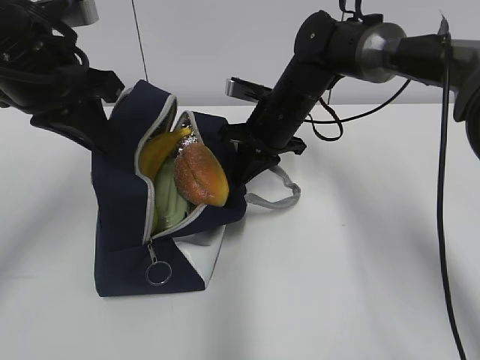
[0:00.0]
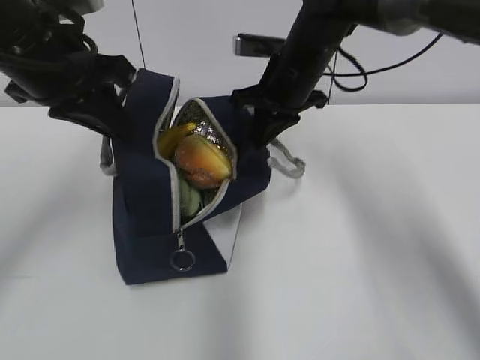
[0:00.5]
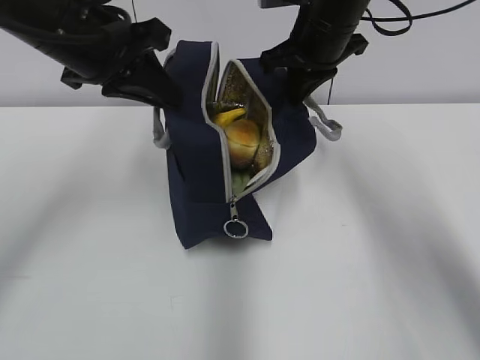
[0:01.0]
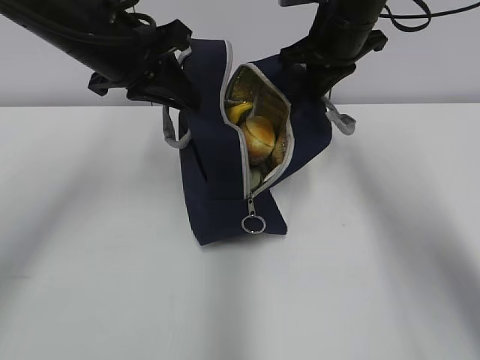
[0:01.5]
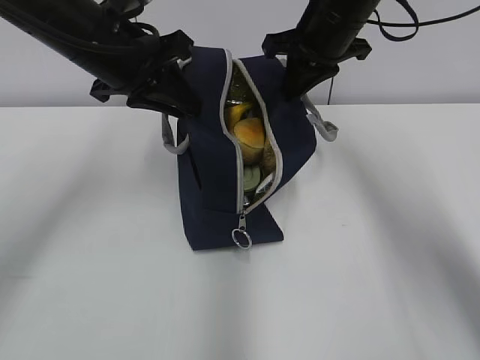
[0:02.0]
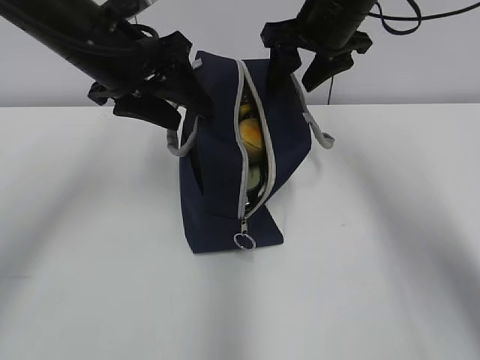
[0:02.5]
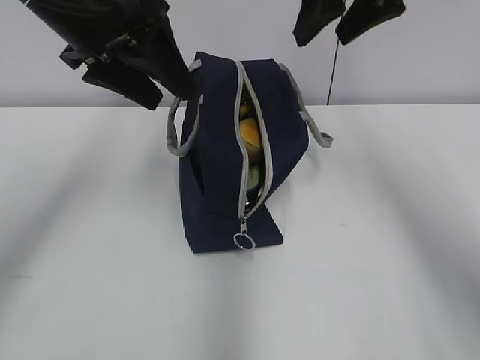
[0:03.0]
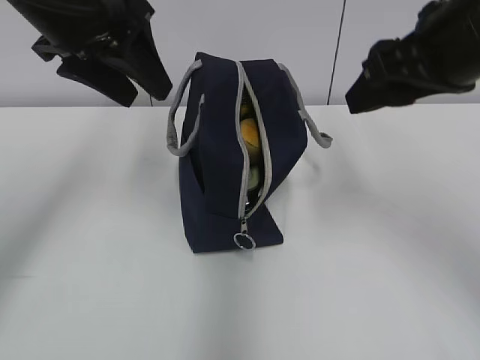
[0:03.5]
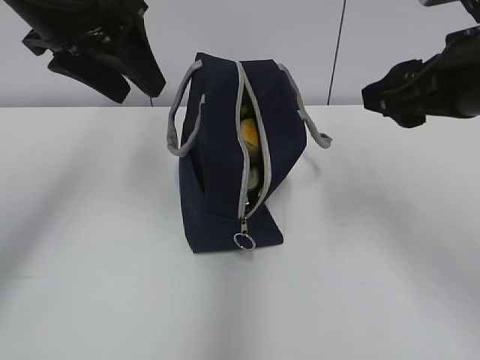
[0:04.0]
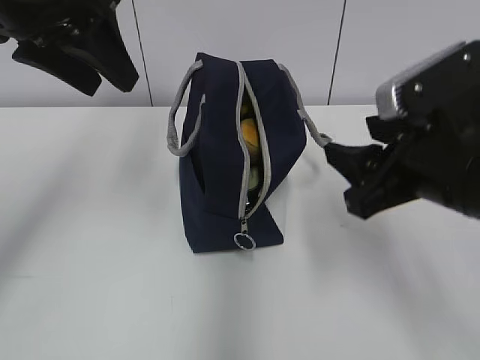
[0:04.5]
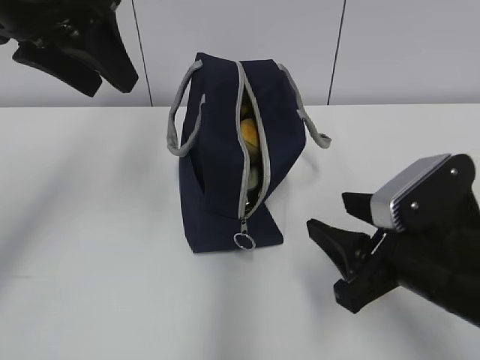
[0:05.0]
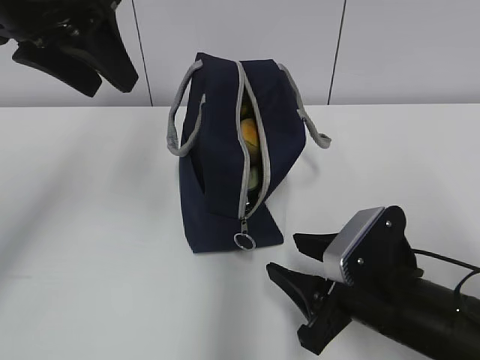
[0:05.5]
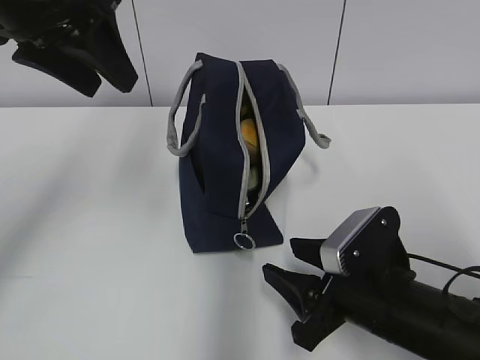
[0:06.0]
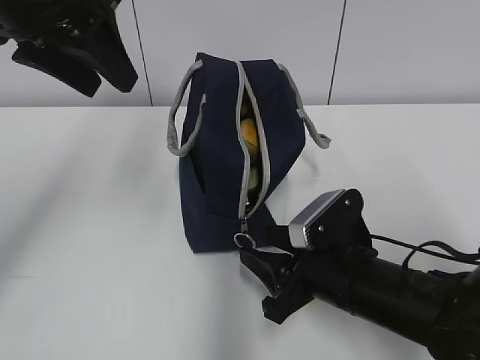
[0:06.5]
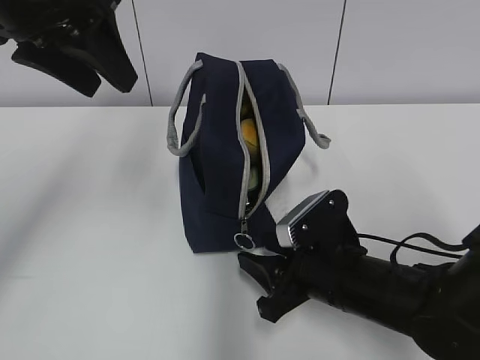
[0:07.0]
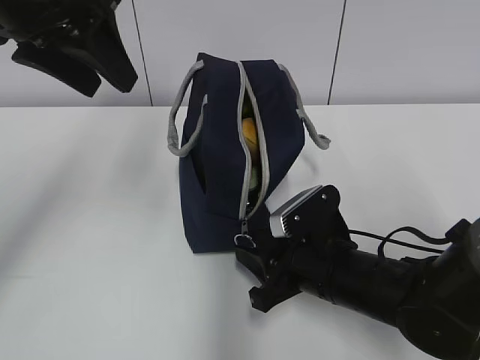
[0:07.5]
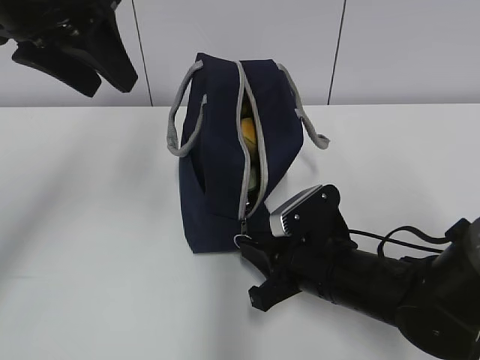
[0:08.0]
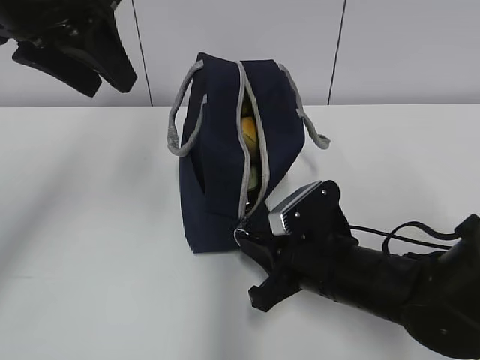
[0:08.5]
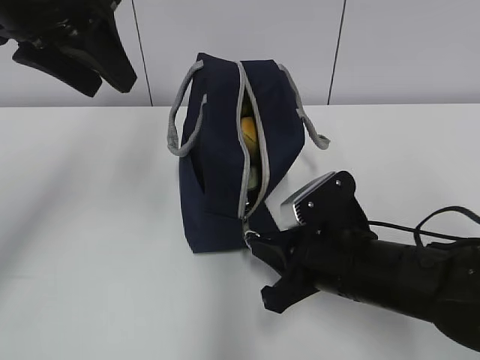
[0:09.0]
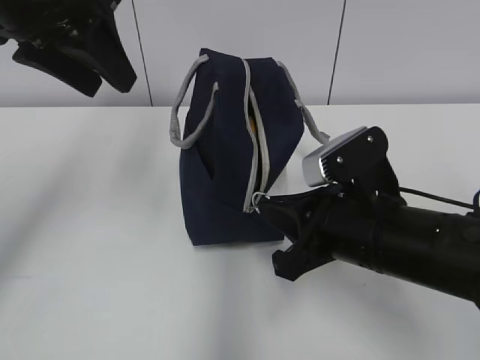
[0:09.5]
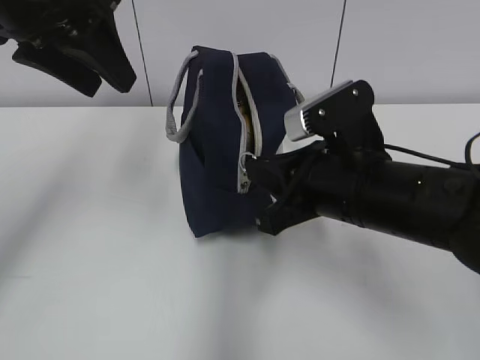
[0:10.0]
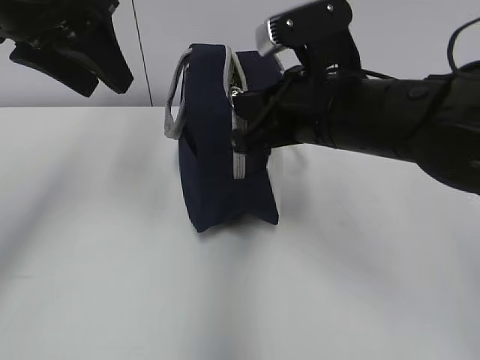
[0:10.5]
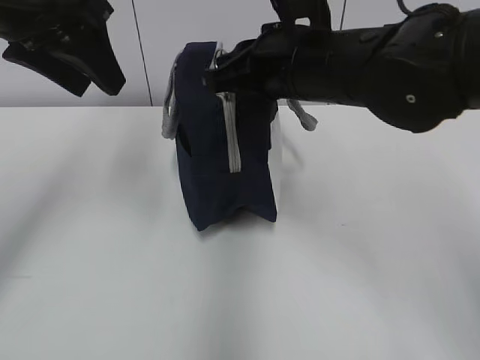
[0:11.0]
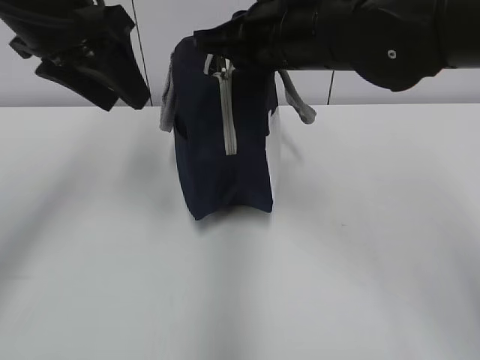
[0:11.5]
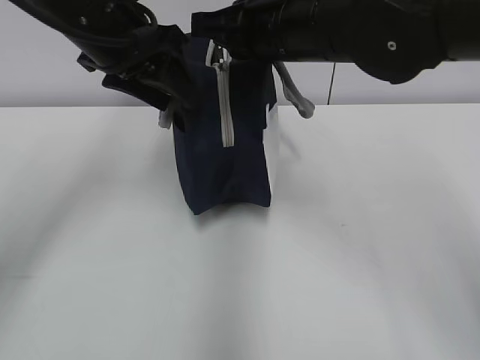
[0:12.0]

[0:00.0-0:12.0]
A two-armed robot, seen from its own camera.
0.0 to 2.0 s: The left gripper goes approximately 5 cm forward. Meanwhile the right gripper is displaced upward and to the right by approximately 15 cm.
2.0 to 4.0 s: The right gripper goes some 20 cm backward, and opens up; the left gripper heads upward, covering approximately 5 cm, and opens its fingers.
4.0 to 6.0 s: The right gripper travels downward by about 20 cm.
6.0 to 8.0 s: The right gripper heads forward, covering some 5 cm, and closes.
8.0 to 10.0 s: The right gripper moves upward, some 10 cm.
10.0 to 12.0 s: The right gripper heads upward and forward, covering some 15 cm. Meanwhile the left gripper changes place by about 5 cm.

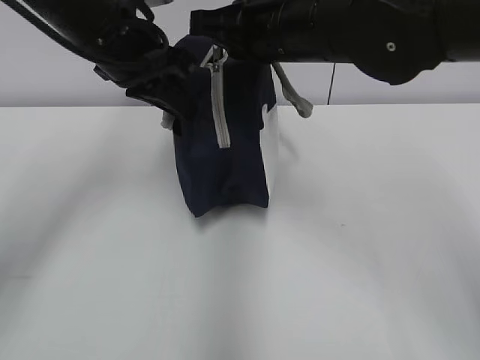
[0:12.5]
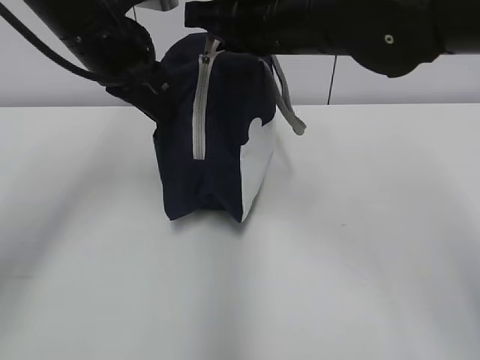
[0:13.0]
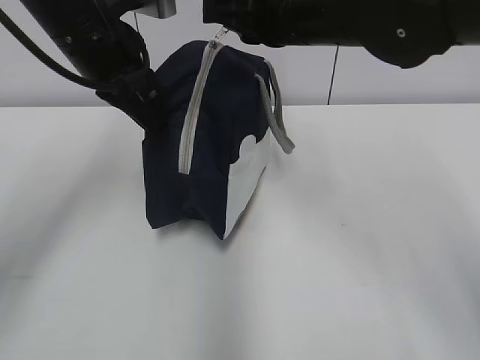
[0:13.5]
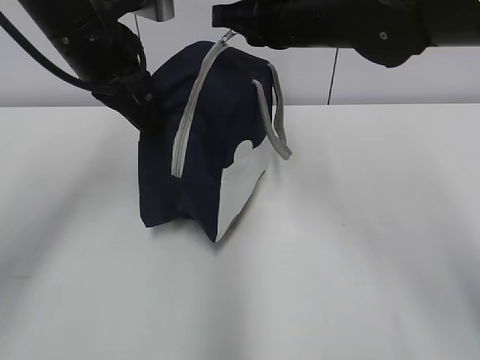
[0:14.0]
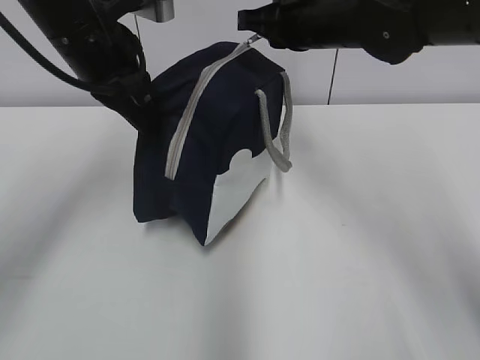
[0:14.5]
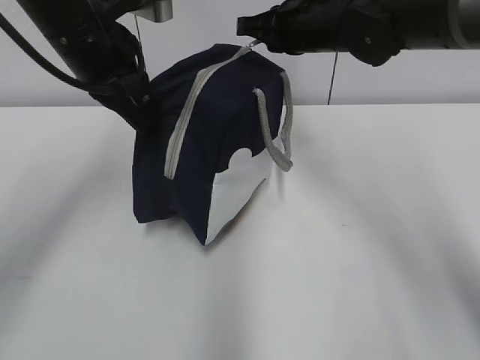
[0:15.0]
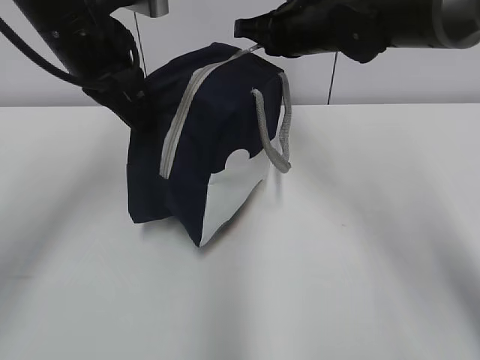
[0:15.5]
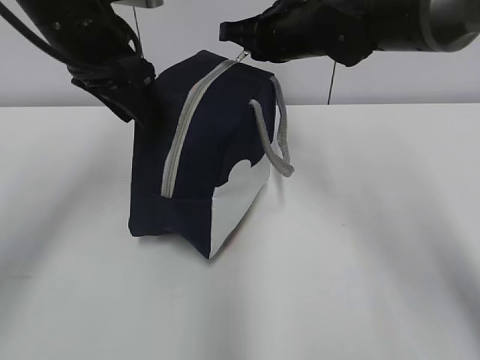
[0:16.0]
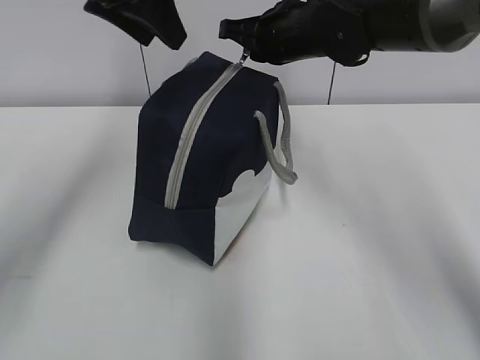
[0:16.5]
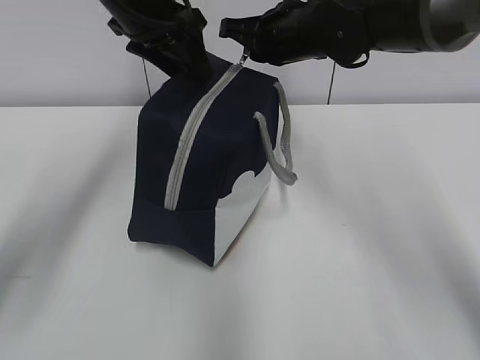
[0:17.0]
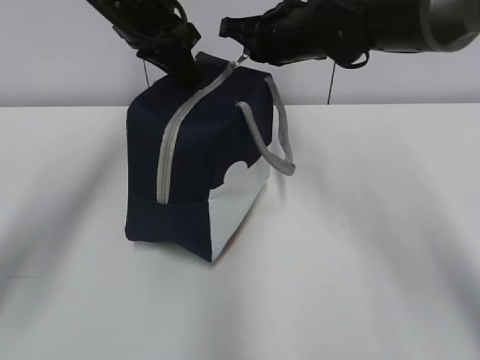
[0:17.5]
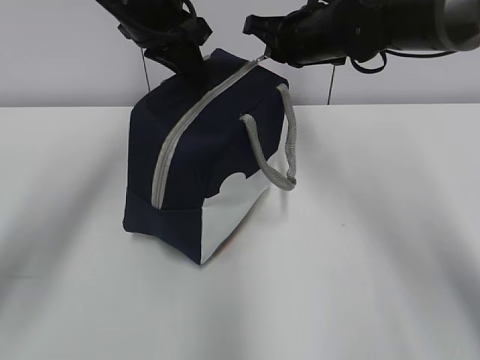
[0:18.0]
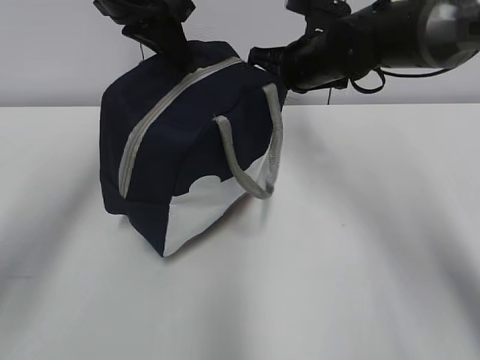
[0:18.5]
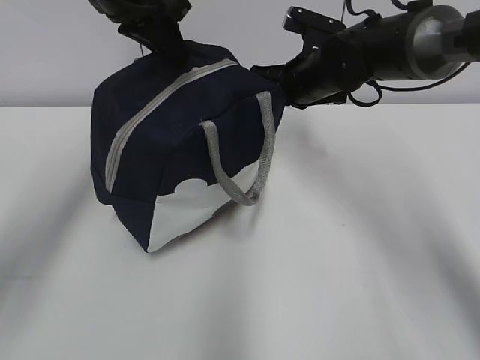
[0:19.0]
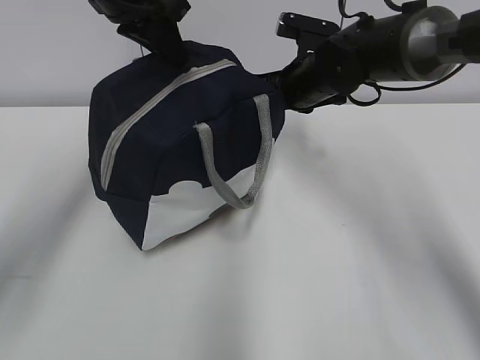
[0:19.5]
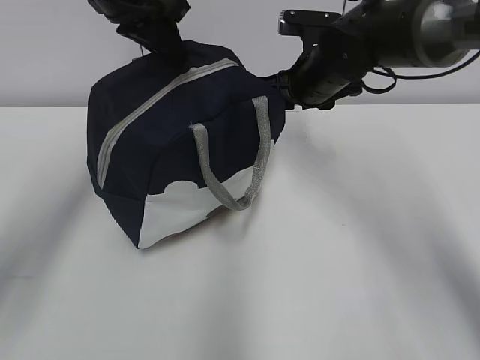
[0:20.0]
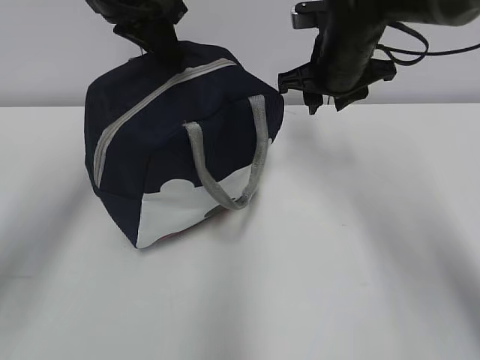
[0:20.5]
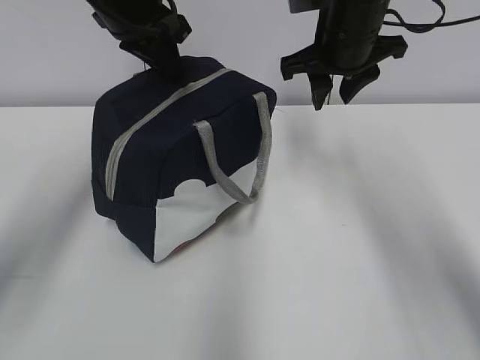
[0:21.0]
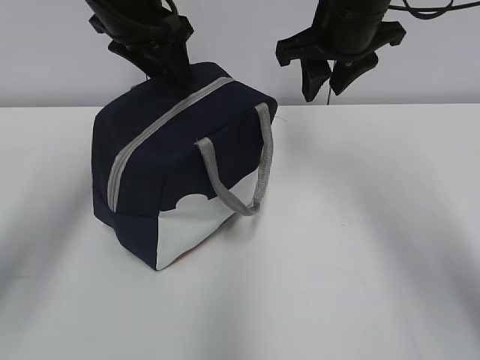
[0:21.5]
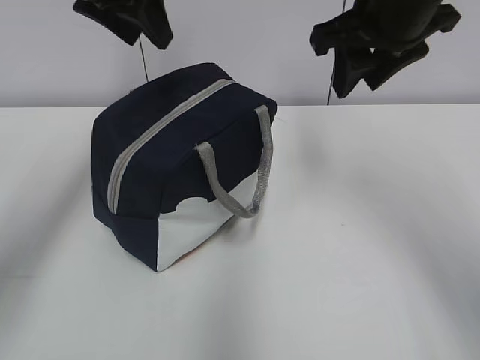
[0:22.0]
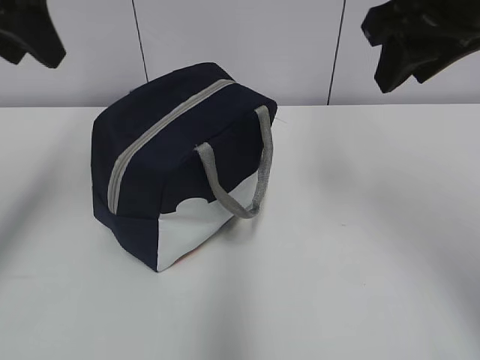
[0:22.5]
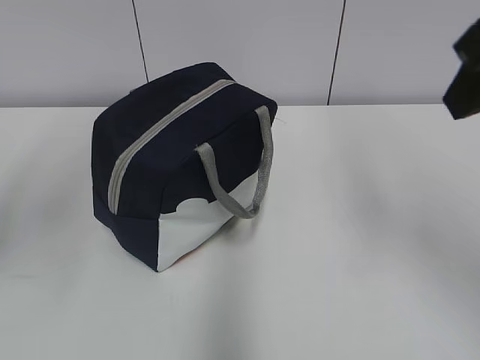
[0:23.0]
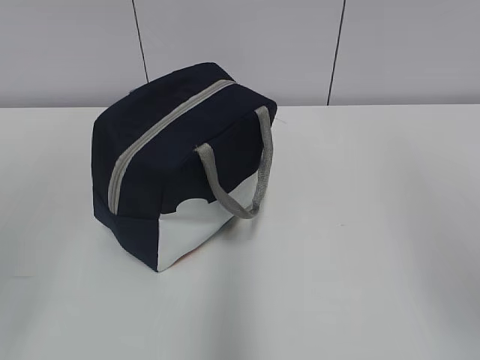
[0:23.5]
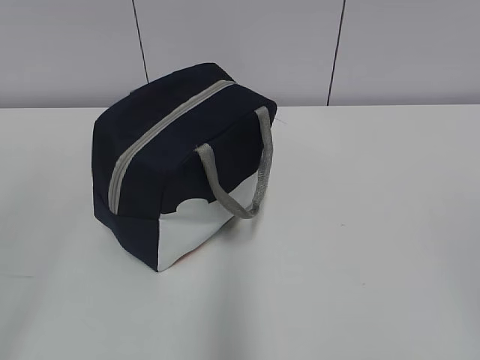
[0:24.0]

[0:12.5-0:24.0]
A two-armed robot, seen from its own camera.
12.5 to 14.5 s: The right gripper heads forward, covering approximately 5 cm.
14.5 to 16.5 s: The left gripper goes approximately 10 cm upward, and opens its fingers.
16.5 to 18.5 s: The right gripper changes place by approximately 5 cm, while the left gripper closes.
18.5 to 20.0 s: The right gripper opens.
20.0 to 22.0 s: The left gripper opens up. The right gripper moves upward and backward, roughly 15 cm.
22.0 to 24.0 s: The left gripper heads backward and to the left, covering about 40 cm; the right gripper heads backward, covering approximately 40 cm.

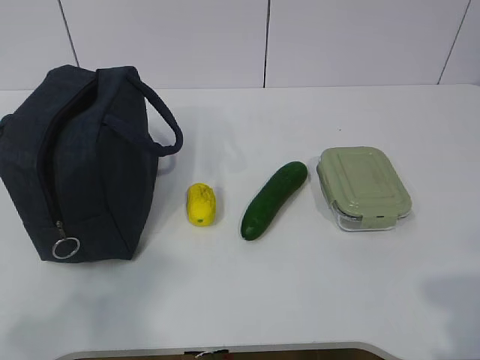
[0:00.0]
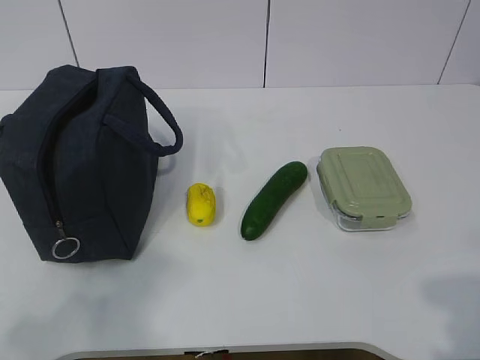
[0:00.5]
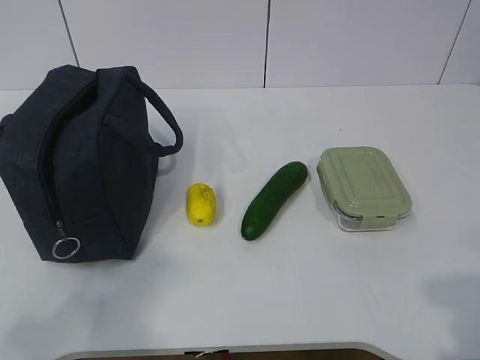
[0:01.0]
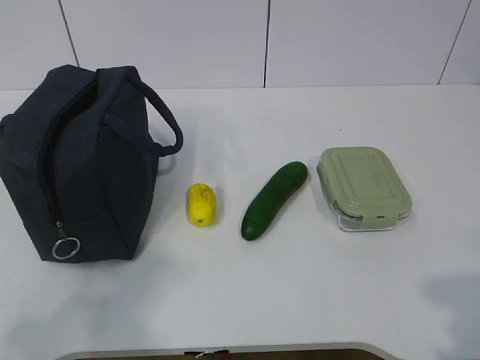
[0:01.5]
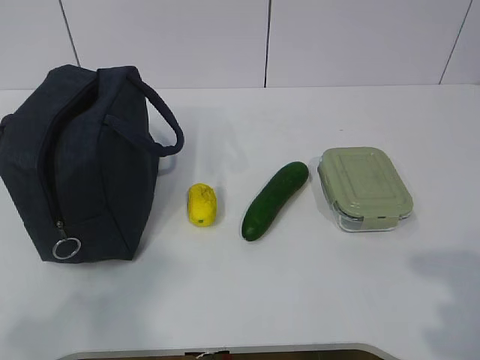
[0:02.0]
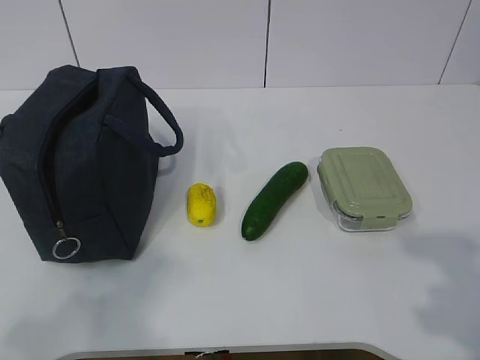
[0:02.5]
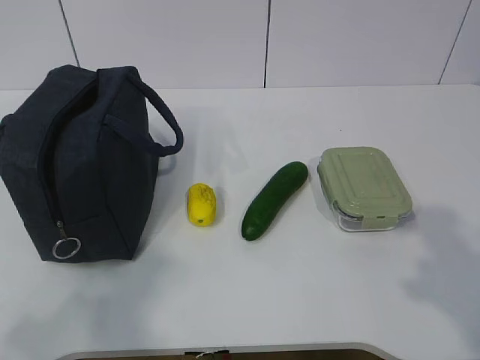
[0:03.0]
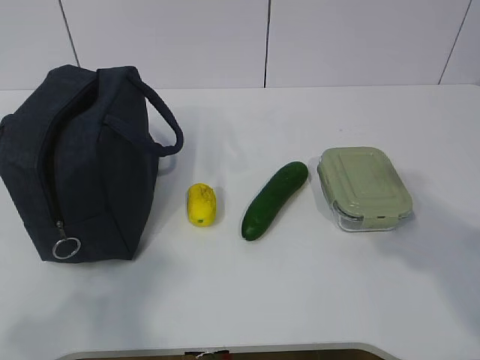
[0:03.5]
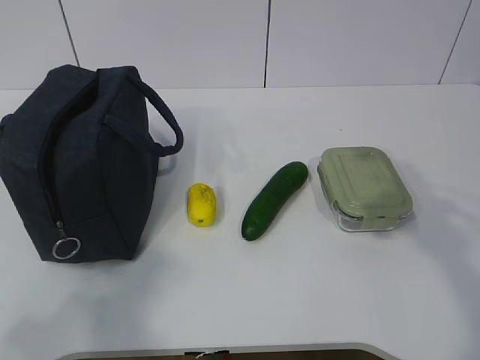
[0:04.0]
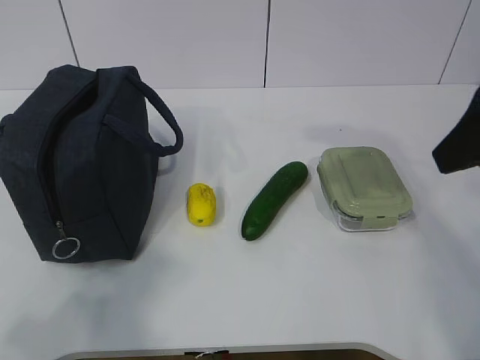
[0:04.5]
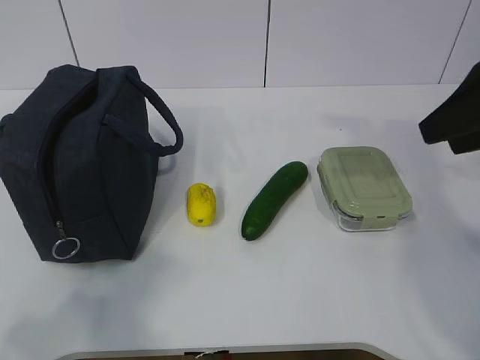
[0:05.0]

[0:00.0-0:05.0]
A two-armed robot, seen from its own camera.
2.5 to 5.0 s: The right gripper goes approximately 25 cm forward.
